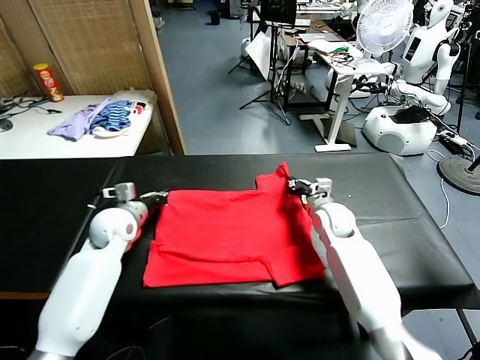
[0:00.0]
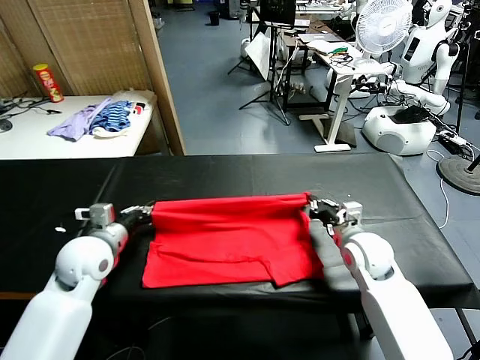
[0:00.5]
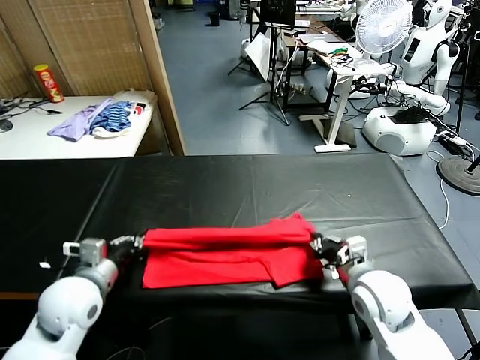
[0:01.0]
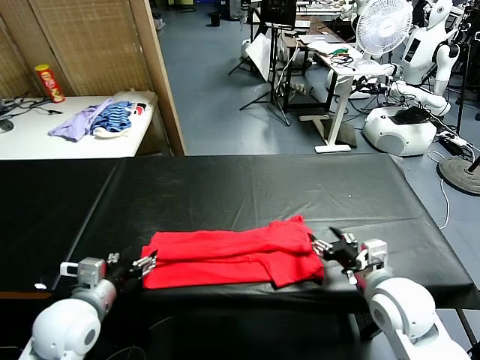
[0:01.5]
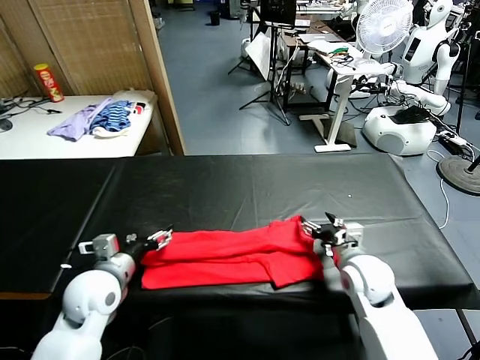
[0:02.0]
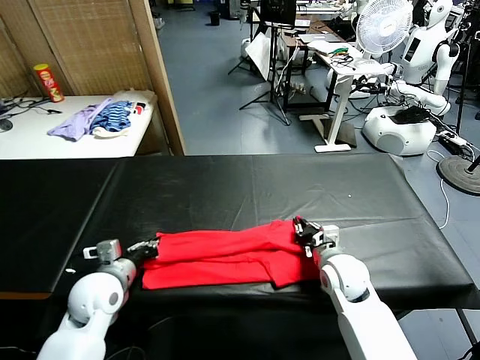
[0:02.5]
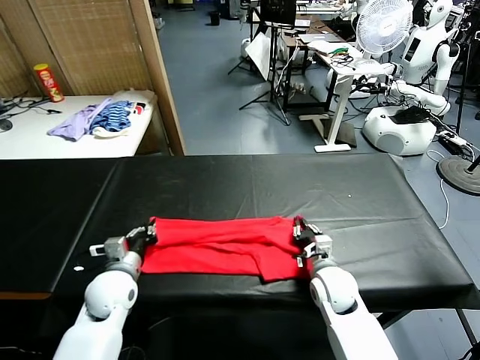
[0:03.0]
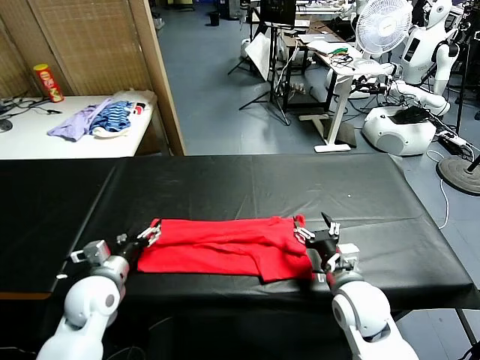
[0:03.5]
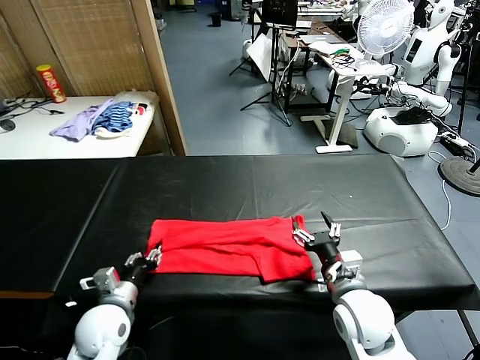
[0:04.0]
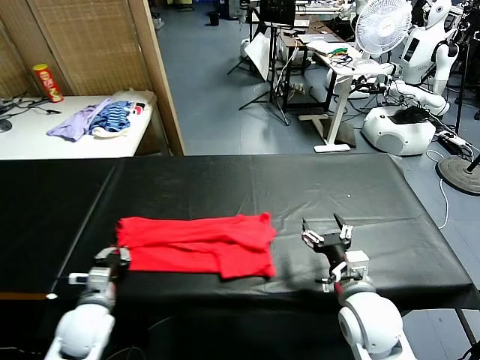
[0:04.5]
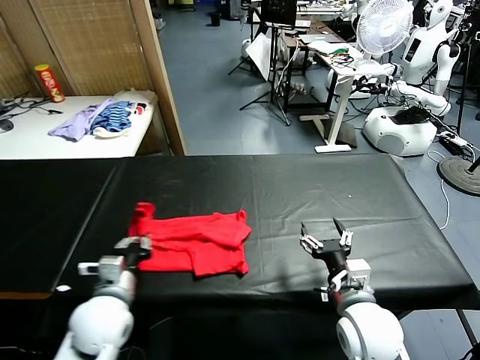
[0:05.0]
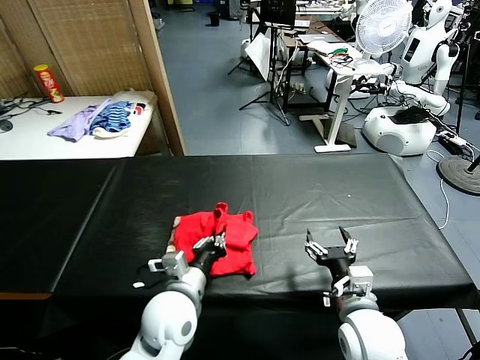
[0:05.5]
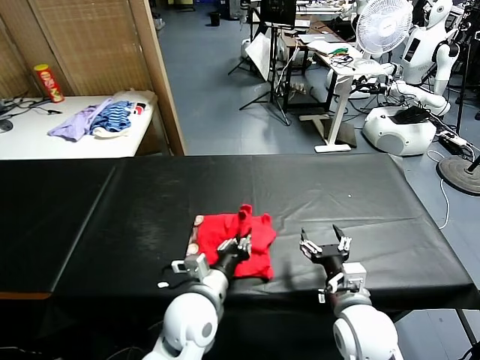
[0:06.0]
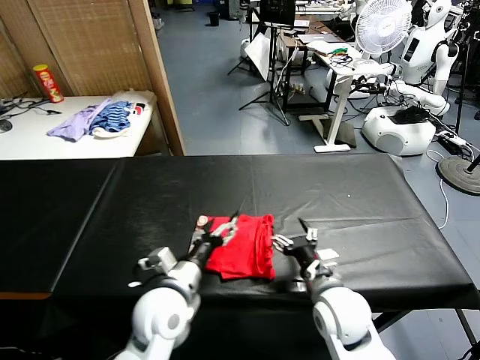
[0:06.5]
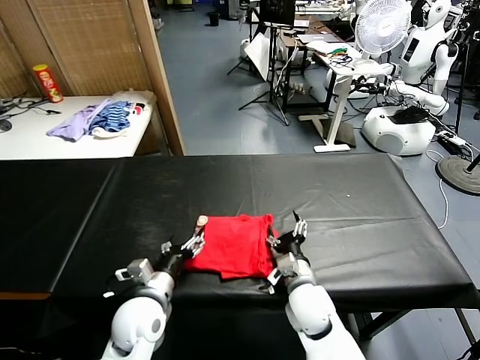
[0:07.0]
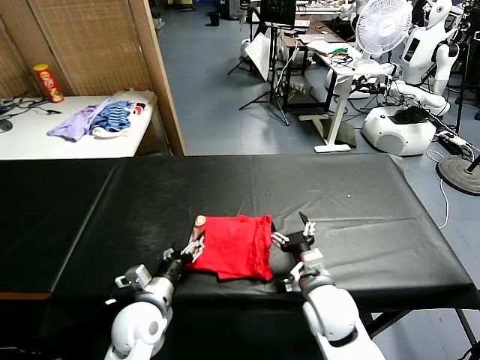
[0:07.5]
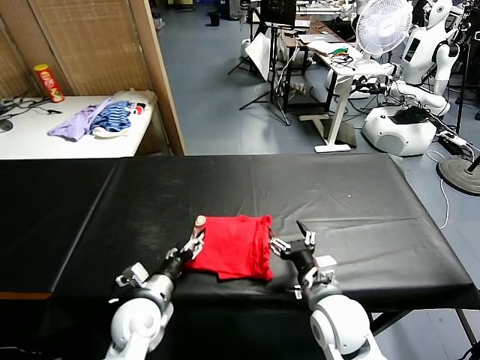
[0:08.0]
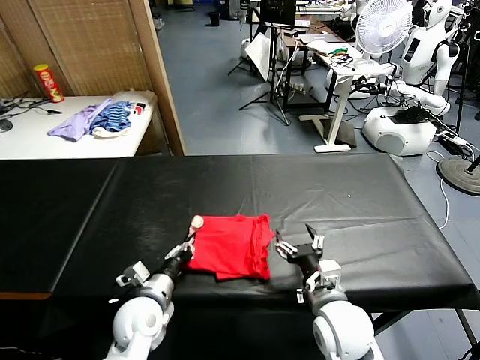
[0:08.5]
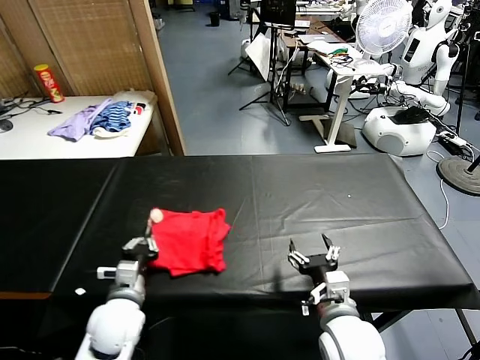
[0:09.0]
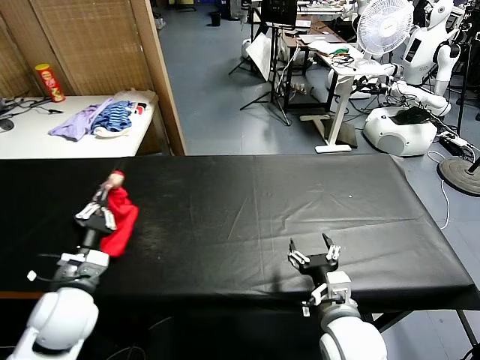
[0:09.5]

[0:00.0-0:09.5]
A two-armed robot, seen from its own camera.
Task of the whole recording: fold and organize the clothes.
Step, 0:00.5 to 0:01.0: use both grippers to drag the upper edge of the fabric backward and fold it over the lower edge.
Step, 0:02.0 to 0:04.5: use the left gripper to clamp the left edge of the fabric.
Step, 0:05.0 to 0:06.0: use the left gripper to drag the left edge of the fabric to the left and folds it over the right edge.
0:00.0 to 0:02.0: The two grippers go some 10 cm backward. The right gripper opens its fingers; the left gripper opens its fingers.
0:02.0 to 0:04.0: The right gripper moves backward, roughly 10 cm, and closes, then opens again; the left gripper travels downward by approximately 5 cm, and closes.
0:04.0 to 0:05.5: The left gripper goes approximately 15 cm to the right and upward, and closes up.
0:05.5 to 0:07.5: The right gripper is displaced forward by approximately 5 cm; the left gripper is displaced to the left and downward by about 10 cm, and opens.
0:07.5 to 0:09.5: The left gripper heads upward and to the left, covering approximately 15 cm, and closes its fingers, while the right gripper goes about 5 cm backward.

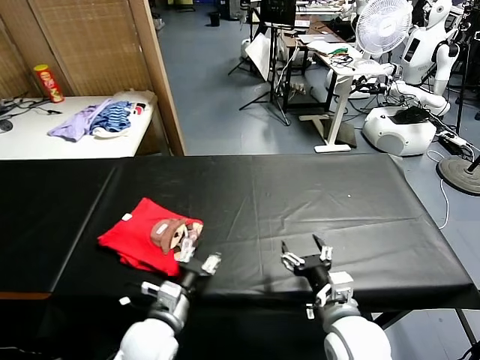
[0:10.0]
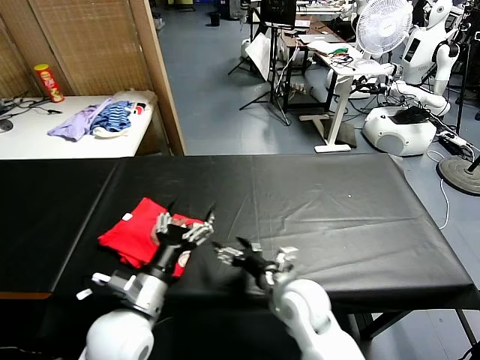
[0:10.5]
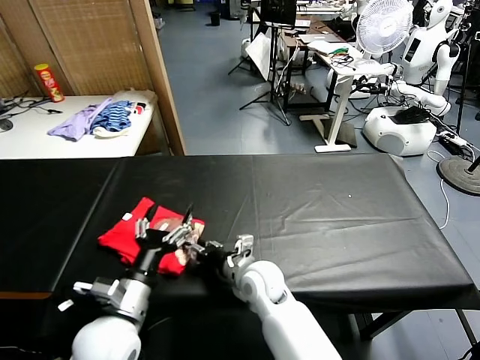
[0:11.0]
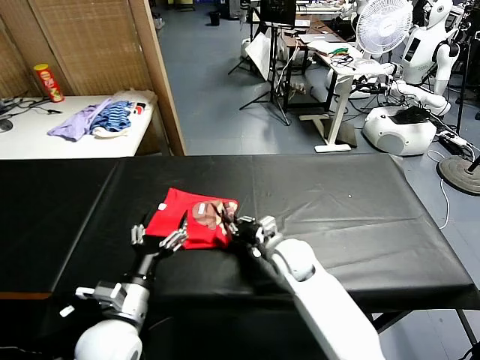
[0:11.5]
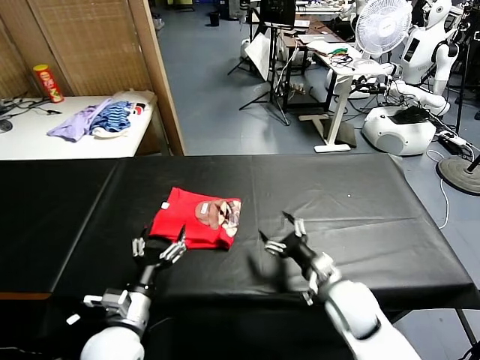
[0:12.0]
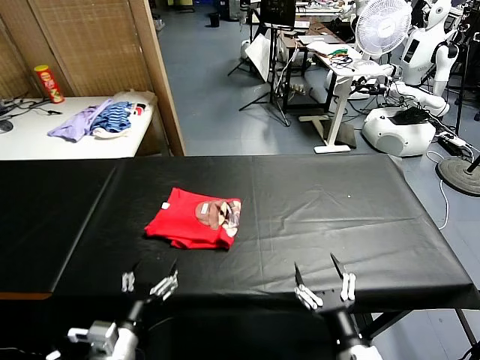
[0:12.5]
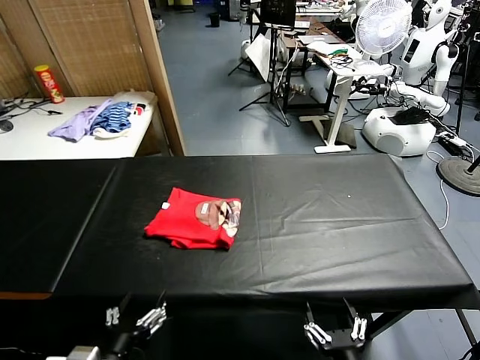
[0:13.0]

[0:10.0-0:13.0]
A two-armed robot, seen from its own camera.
Task of the whole recording: fold and organize the clothes.
Step, 0:10.5 to 0:11.5: Drag the clothes to the center of the table.
0:10.0 to 0:11.5: The left gripper heads upward, covering about 5 cm, and opens. The right gripper goes roughly 20 cm forward, and closes its fingers.
0:11.5 to 0:13.0: The left gripper goes approximately 10 cm backward. Meanwhile the right gripper travels backward by approximately 35 cm, and opens.

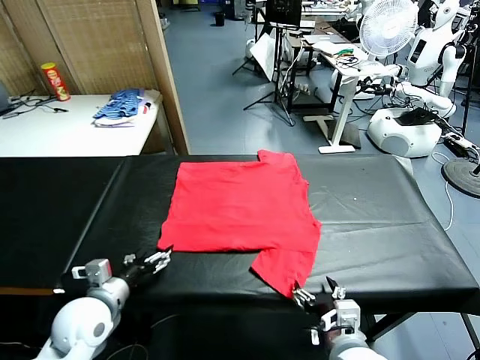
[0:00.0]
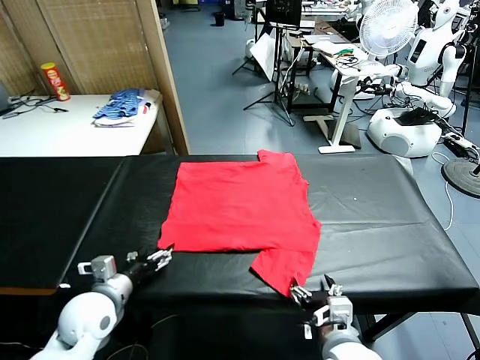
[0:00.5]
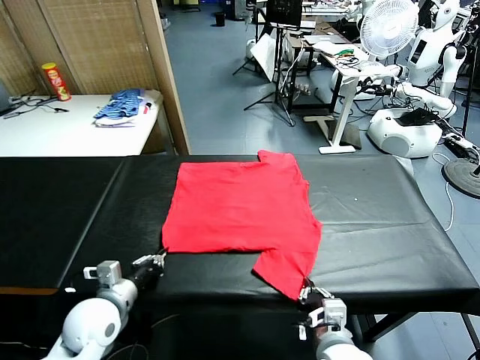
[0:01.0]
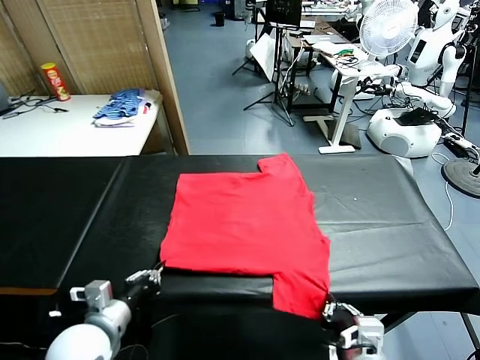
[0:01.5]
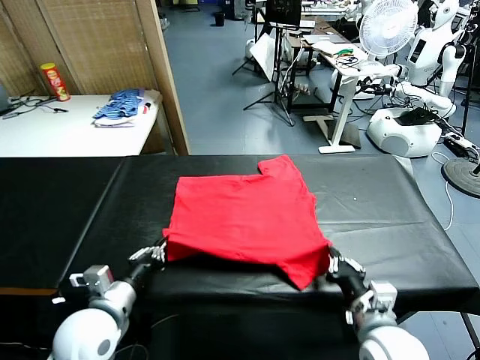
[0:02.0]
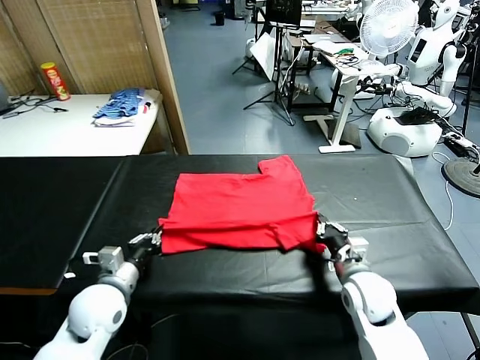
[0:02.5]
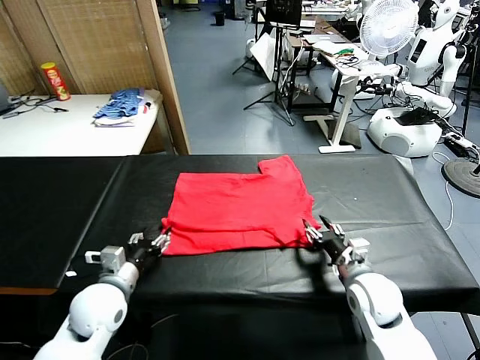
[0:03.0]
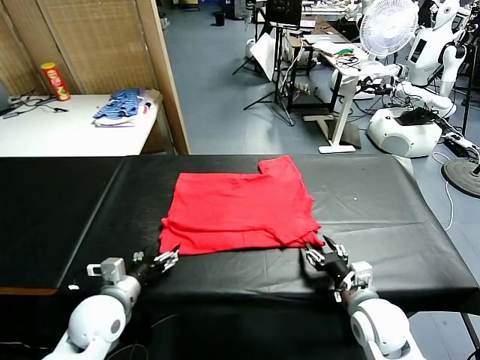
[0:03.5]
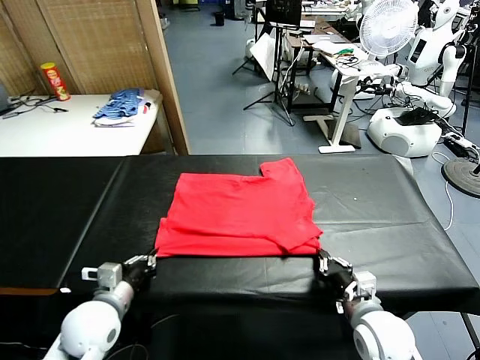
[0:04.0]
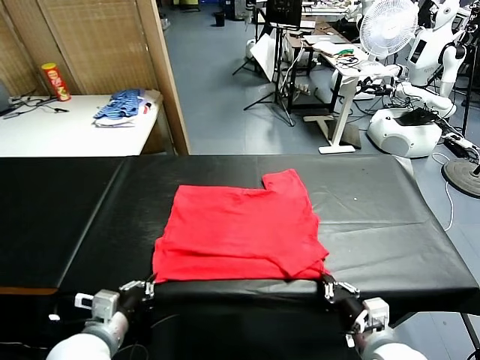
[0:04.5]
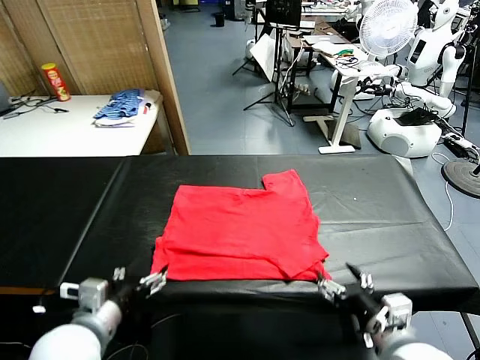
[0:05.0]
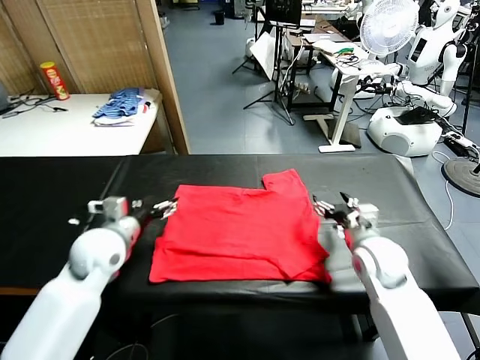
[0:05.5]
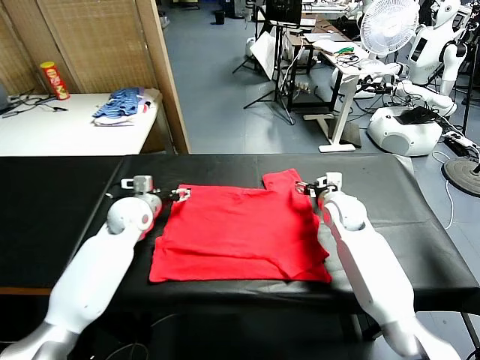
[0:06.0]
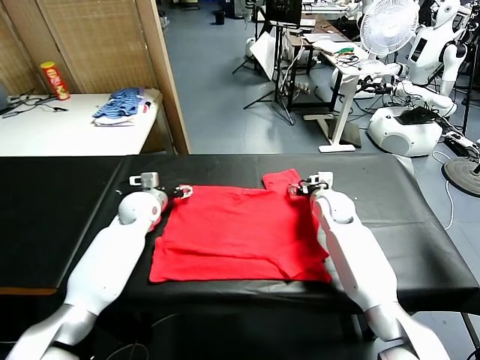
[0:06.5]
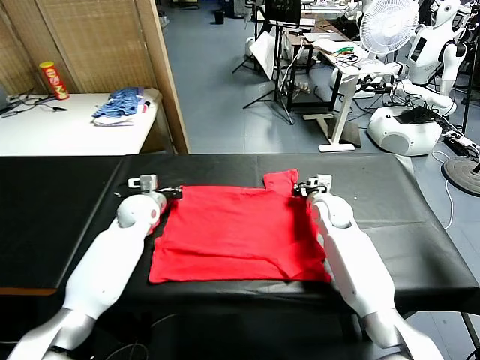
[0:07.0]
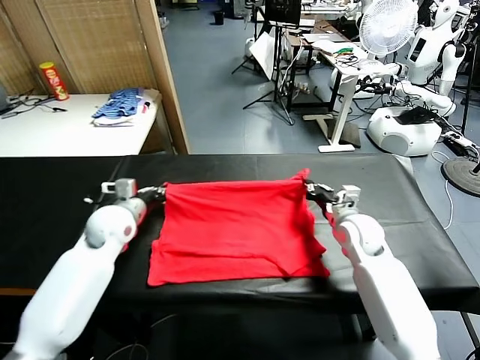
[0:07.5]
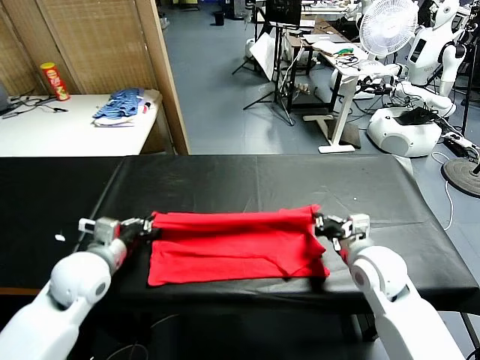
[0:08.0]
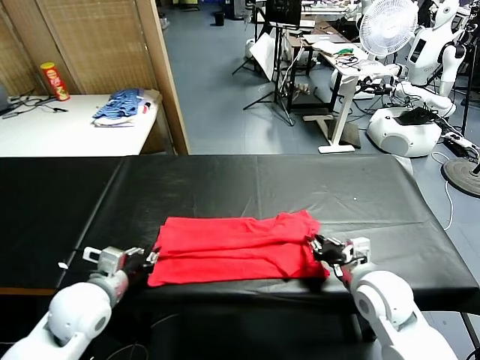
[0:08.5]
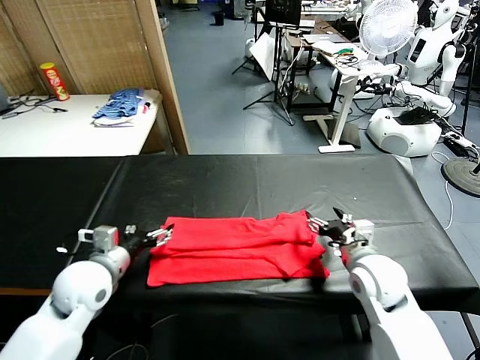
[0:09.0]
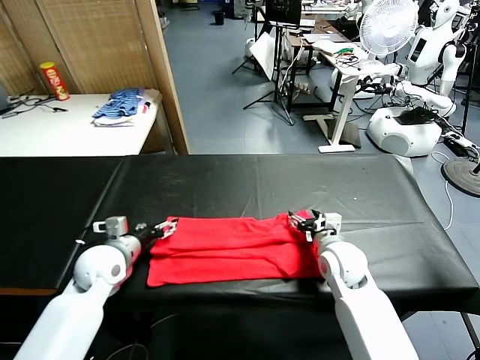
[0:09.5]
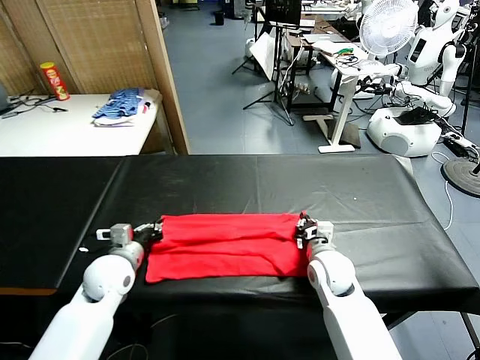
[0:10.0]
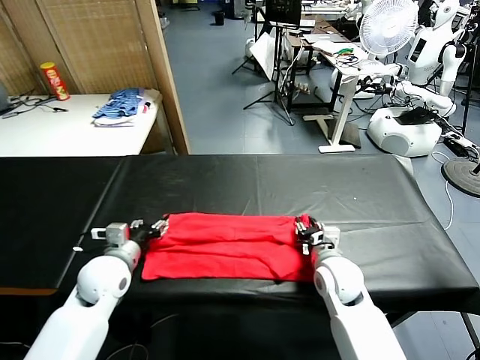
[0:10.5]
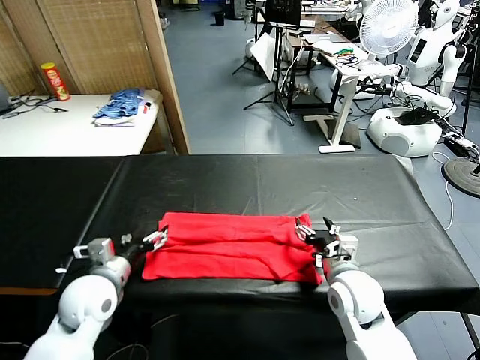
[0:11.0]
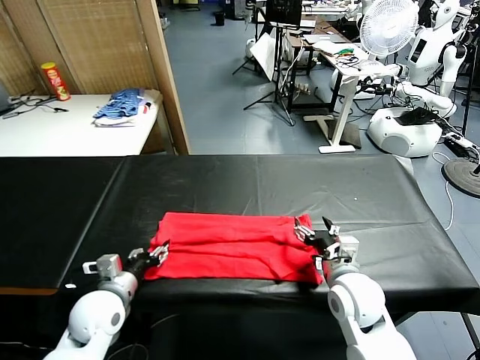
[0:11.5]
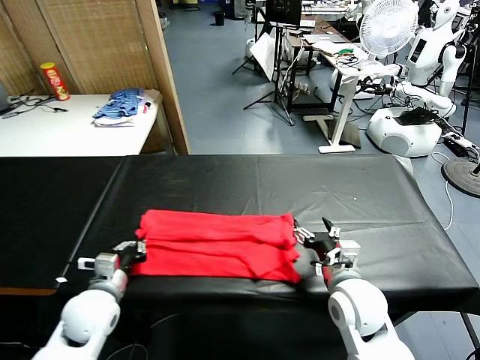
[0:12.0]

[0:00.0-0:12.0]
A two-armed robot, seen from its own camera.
Task of the whole recording: fold and organize the clothes.
Step, 0:00.0 to 0:01.0: use both grippers simultaneously to clamp the lower edge of the clothing fabric.
Step, 0:01.5 to 0:03.0: use both grippers to drag the lower edge of the fabric forward and fold it over the upper edge.
Step, 0:03.5 to 0:04.5: Drag the clothes downward with both gripper.
Step, 0:05.0 to 0:07.0: use both grippers simultaneously to clamp the upper edge of the clothing fabric.
Step, 0:07.5 to 0:08.5: use both grippers to drag the upper edge of the fabric backward and fold it over the lower edge.
Step, 0:09.0 to 0:12.0: use the left gripper to clamp the left edge of the fabric.
0:02.0 to 0:04.0: The left gripper opens, then closes once more. Meanwhile the right gripper shifts roughly 5 cm backward, and opens, then closes again.
0:04.0 to 0:06.0: Both grippers move forward, roughly 30 cm. The left gripper opens; the right gripper opens up.
0:06.0 to 0:08.0: The grippers both shift backward by roughly 20 cm. The left gripper closes up. The right gripper closes its fingers.
0:08.0 to 0:10.0: The right gripper travels downward, to the left and forward by approximately 10 cm, and opens, then closes once more, while the left gripper goes about 5 cm downward, and opens, then closes once more.
0:10.0 to 0:12.0: The left gripper heads backward, covering some 5 cm, and opens, then closes once more; the right gripper is displaced backward and upward by some 10 cm, and opens.
